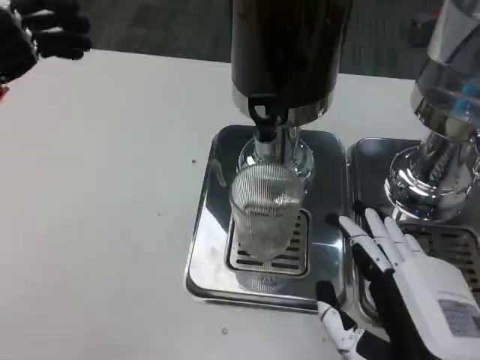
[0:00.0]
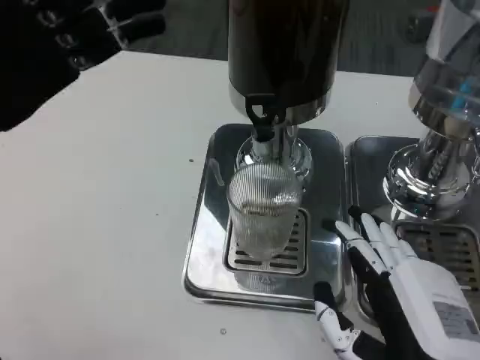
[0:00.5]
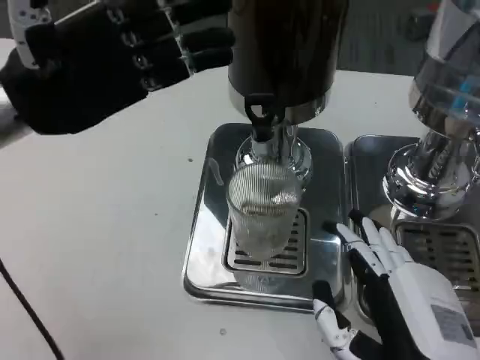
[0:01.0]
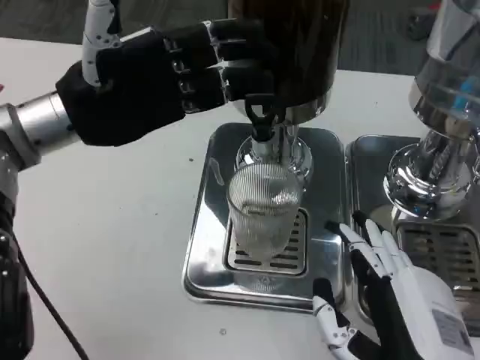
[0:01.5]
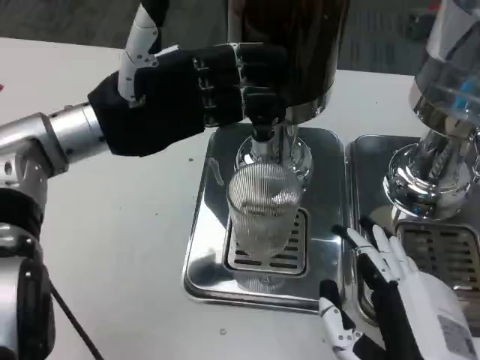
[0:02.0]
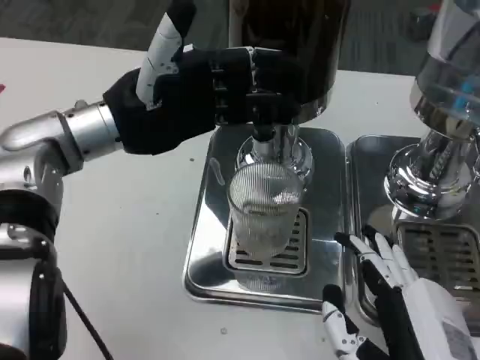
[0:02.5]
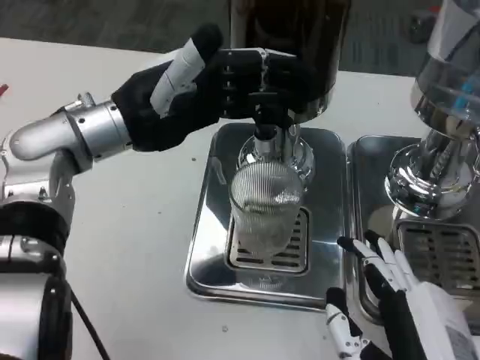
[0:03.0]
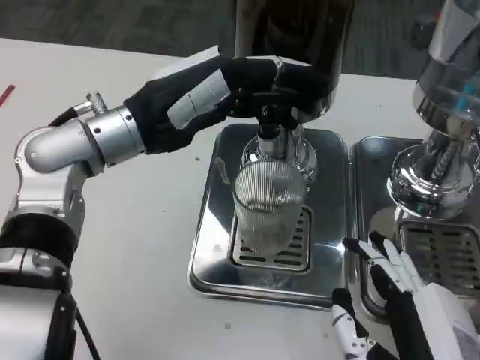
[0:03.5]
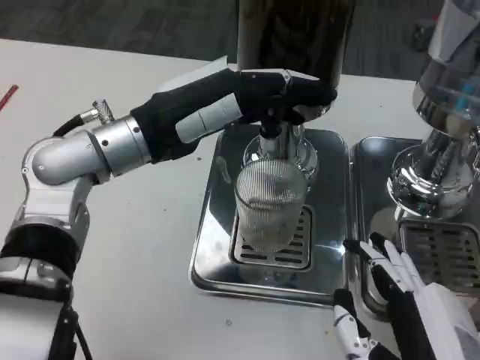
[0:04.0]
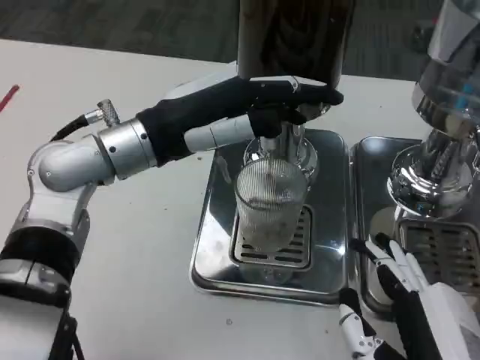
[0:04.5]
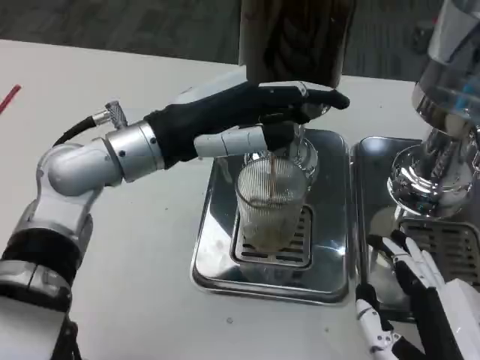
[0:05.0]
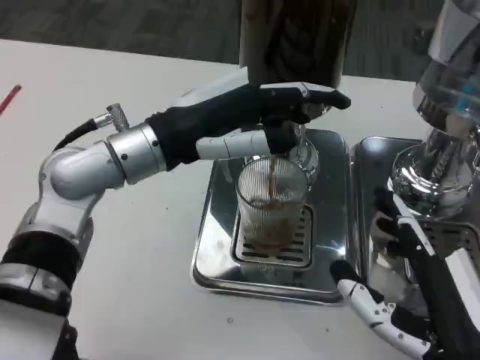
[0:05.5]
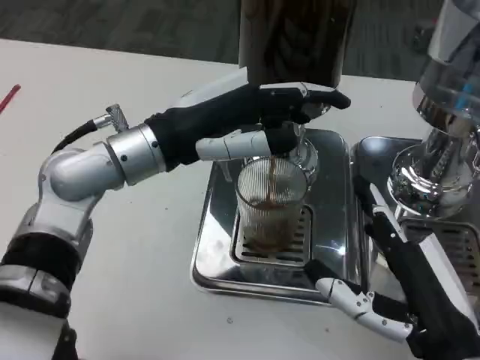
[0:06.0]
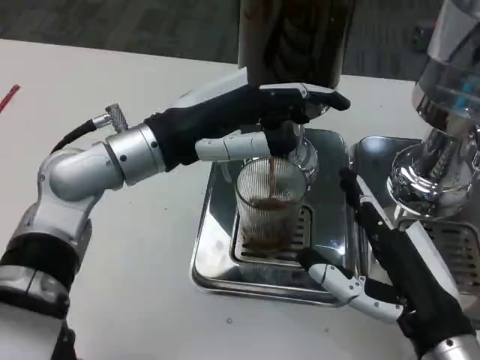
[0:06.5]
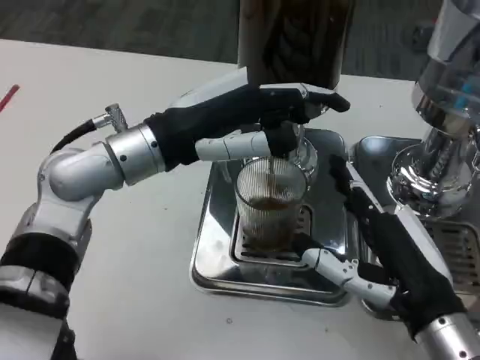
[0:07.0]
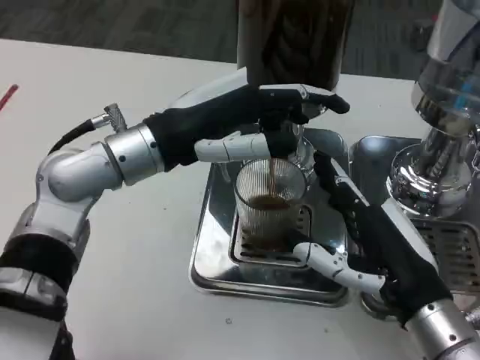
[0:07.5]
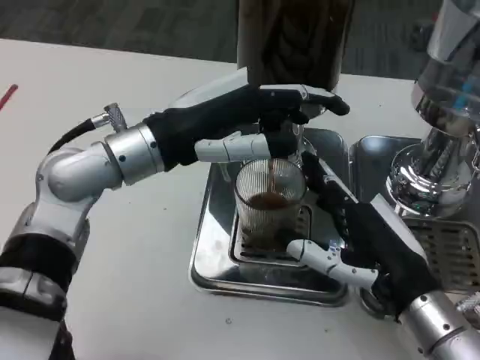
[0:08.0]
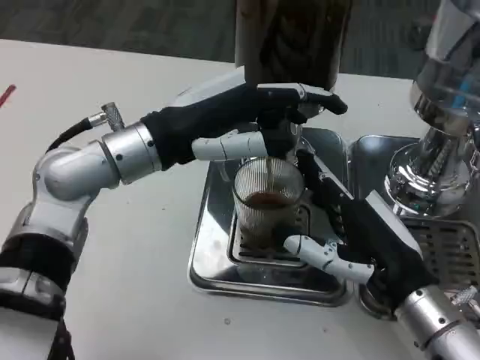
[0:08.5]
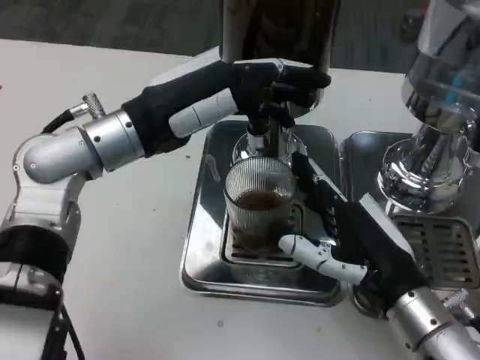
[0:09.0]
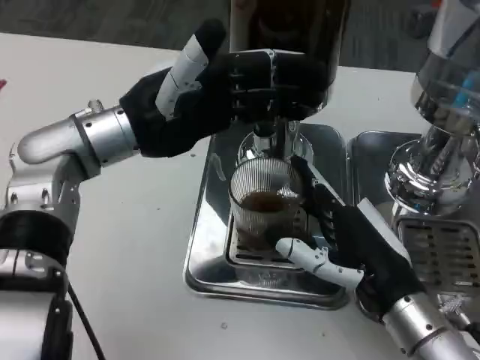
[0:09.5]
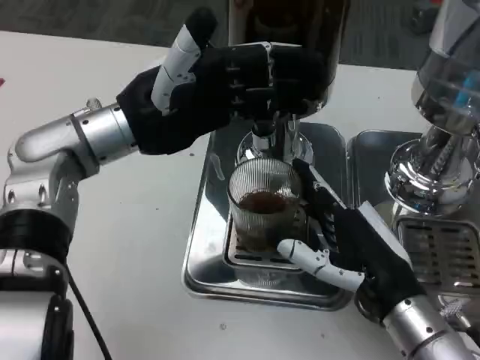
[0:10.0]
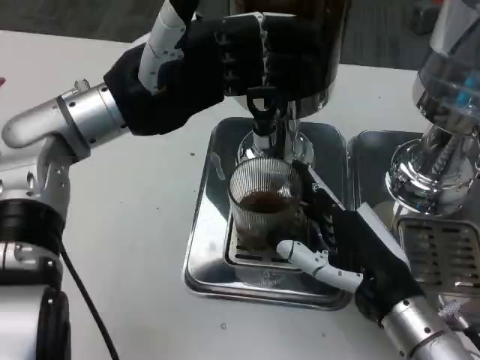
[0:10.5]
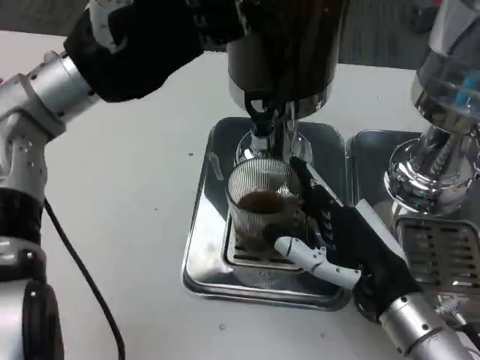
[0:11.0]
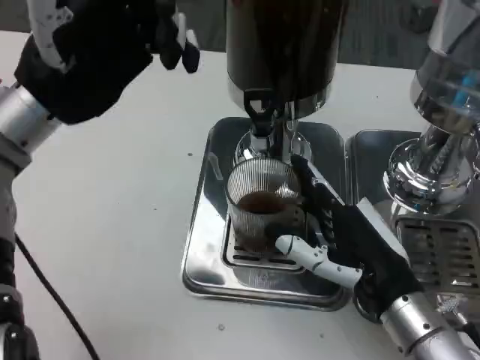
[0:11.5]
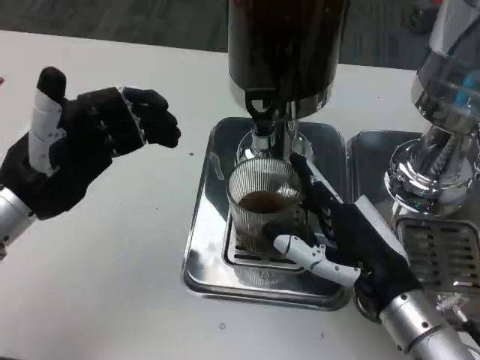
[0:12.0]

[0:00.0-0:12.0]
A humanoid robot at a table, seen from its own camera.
Task of the whole recording: Grasp the cup under the faucet to collect the drink, then remove the cup.
0:00.0 to 0:02.0: The left hand moves forward and to the right, some 15 cm.
0:04.0 to 0:06.0: The right hand heads forward, covering about 5 cm.
0:06.0 to 0:08.0: The right hand goes about 5 cm forward.
0:10.0 to 0:12.0: The left hand travels to the left, backward and downward by approximately 15 cm.

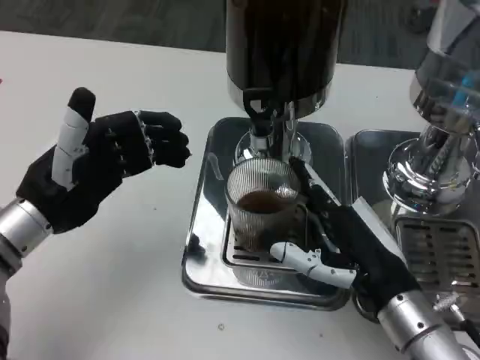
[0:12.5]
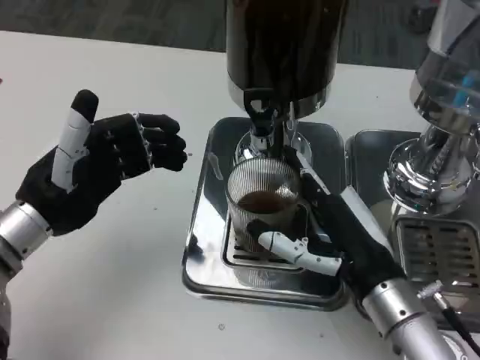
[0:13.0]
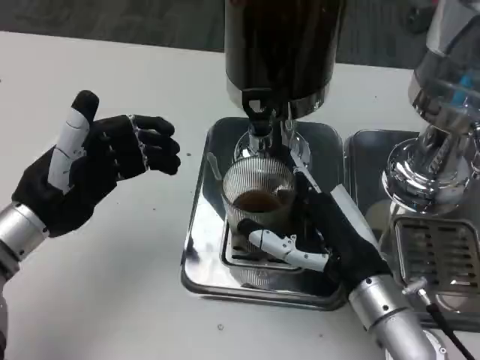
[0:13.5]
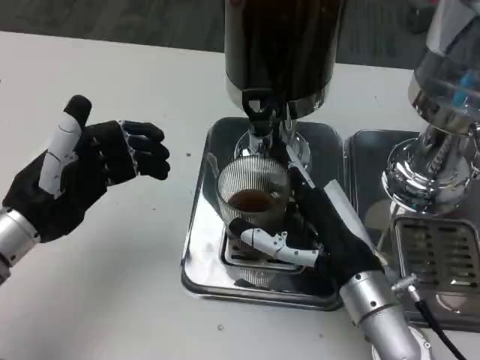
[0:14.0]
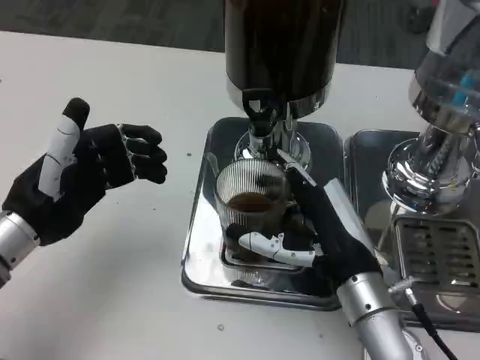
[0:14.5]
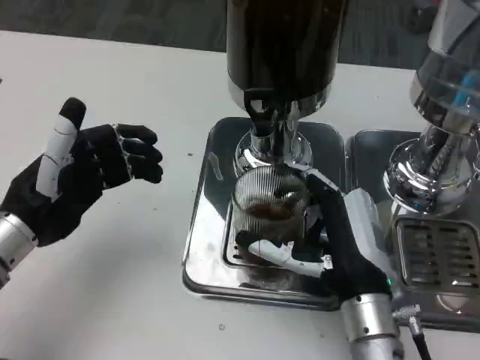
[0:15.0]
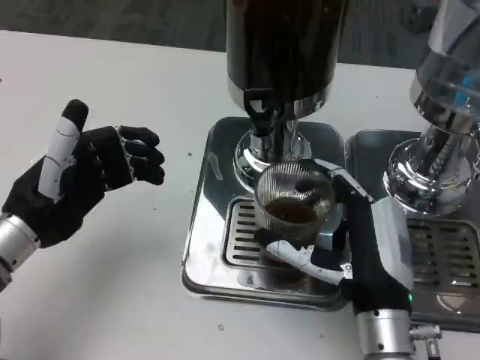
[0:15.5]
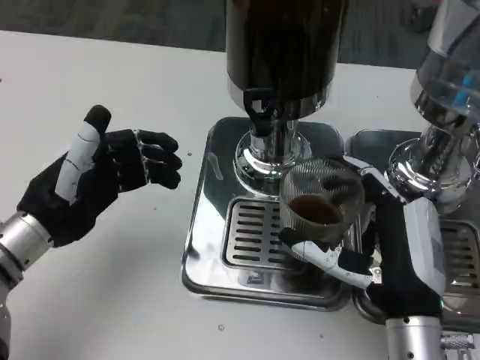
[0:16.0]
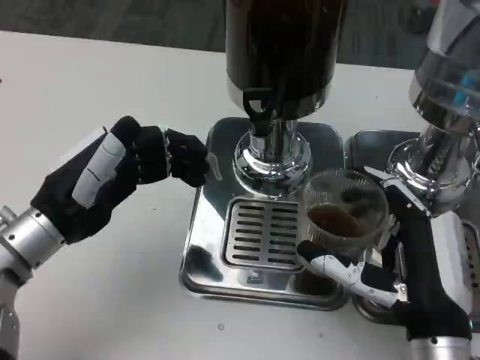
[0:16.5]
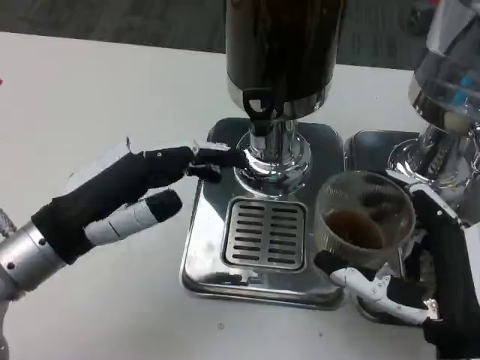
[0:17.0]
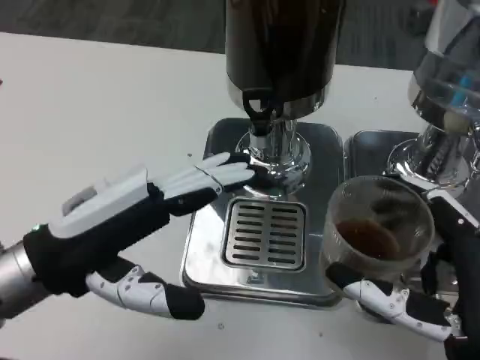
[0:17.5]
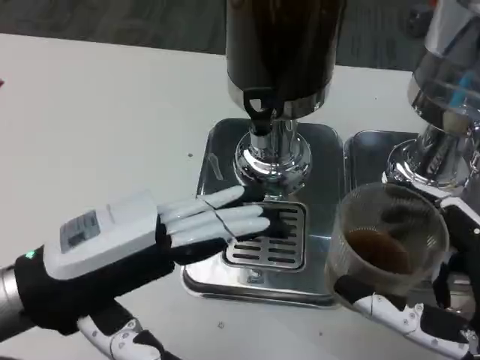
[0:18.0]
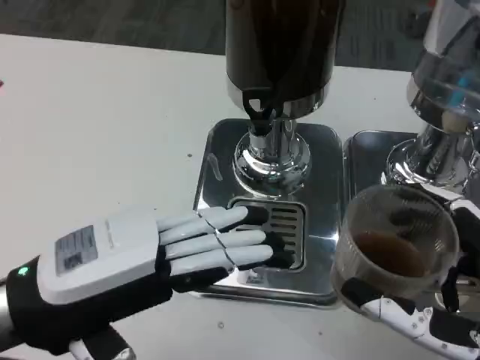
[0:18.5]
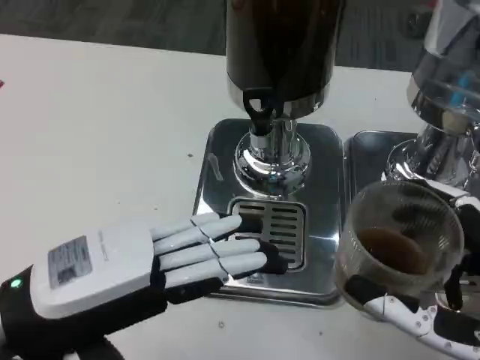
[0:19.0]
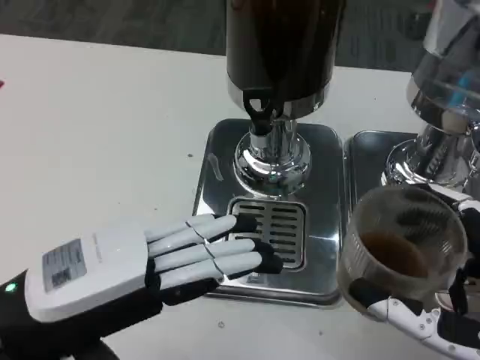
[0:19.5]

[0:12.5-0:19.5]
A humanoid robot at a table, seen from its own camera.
Task of the whole recording: Grasp the cup under the faucet to collect the drink, then remove the cup.
0:12.5 to 0:14.5: The right hand moves approximately 5 cm.
0:16.0 to 0:17.5: The left hand moves backward and upward, some 10 cm, while the right hand goes some 5 cm backward.

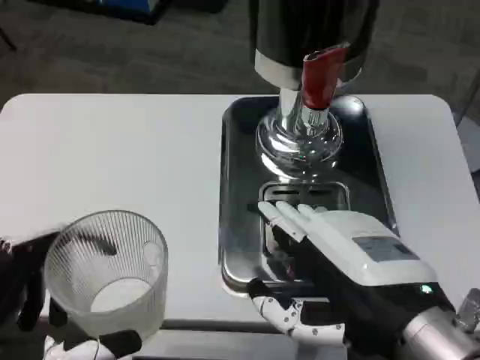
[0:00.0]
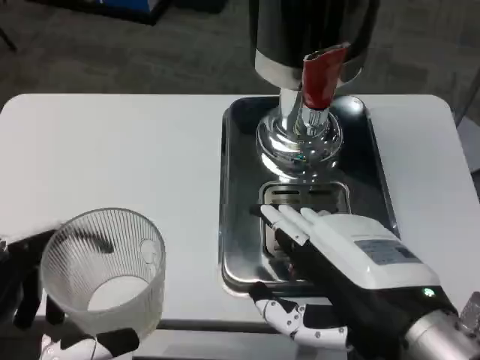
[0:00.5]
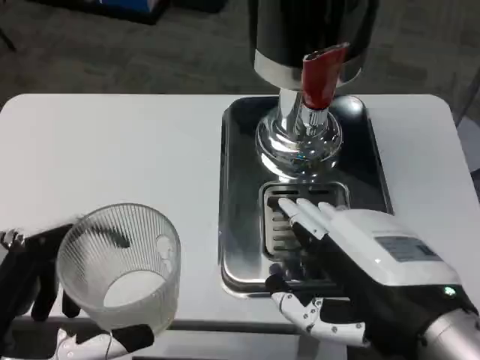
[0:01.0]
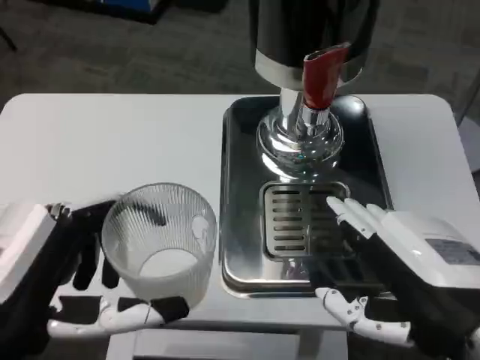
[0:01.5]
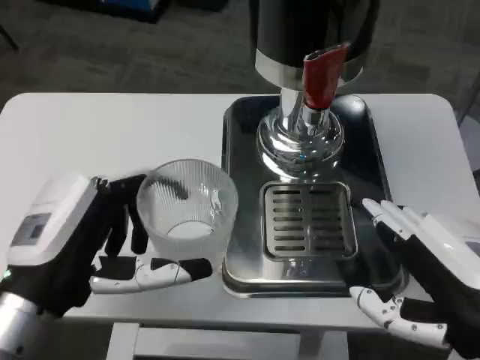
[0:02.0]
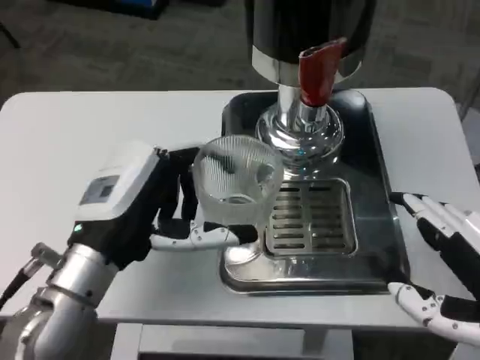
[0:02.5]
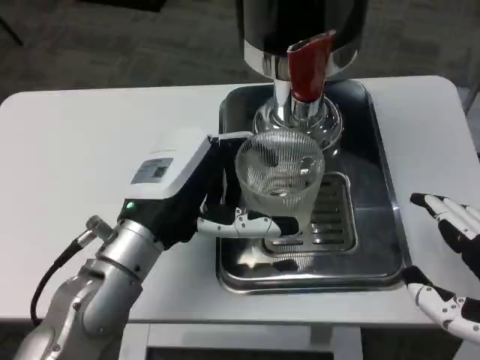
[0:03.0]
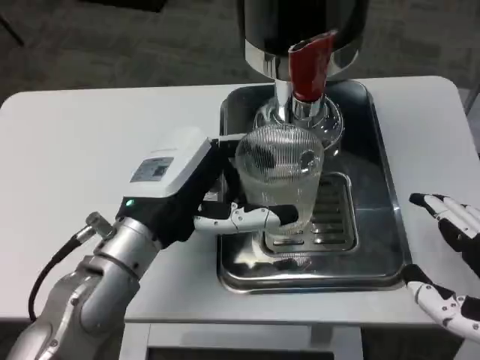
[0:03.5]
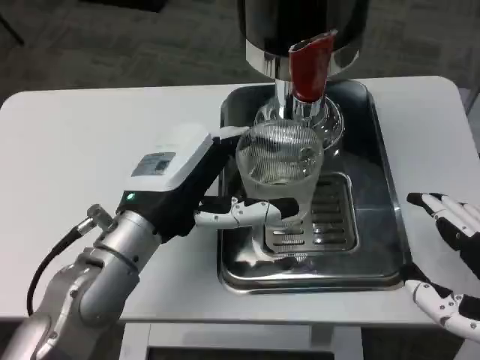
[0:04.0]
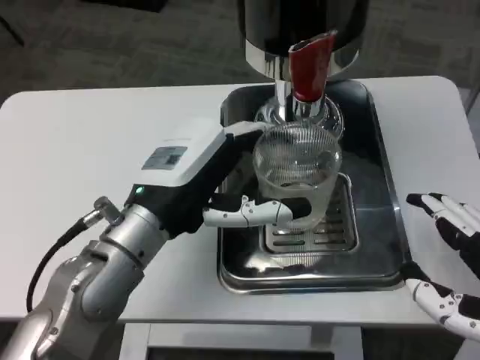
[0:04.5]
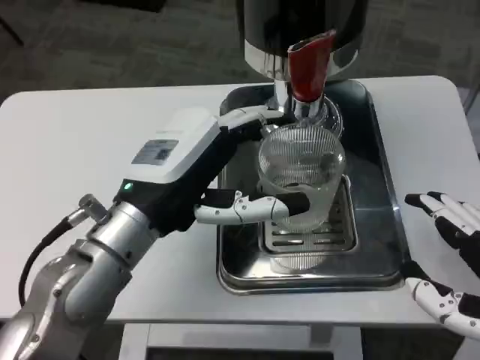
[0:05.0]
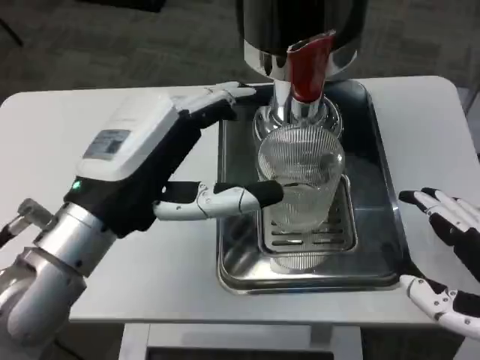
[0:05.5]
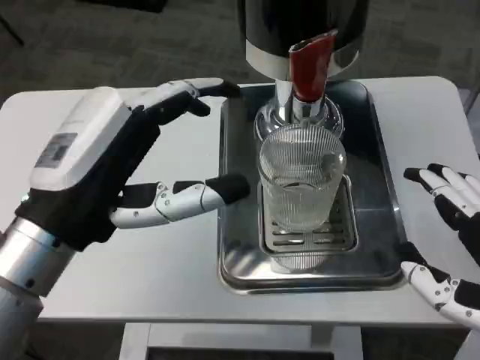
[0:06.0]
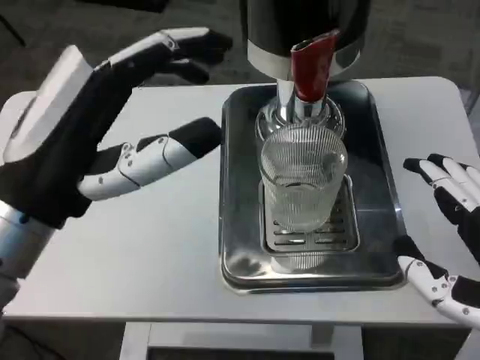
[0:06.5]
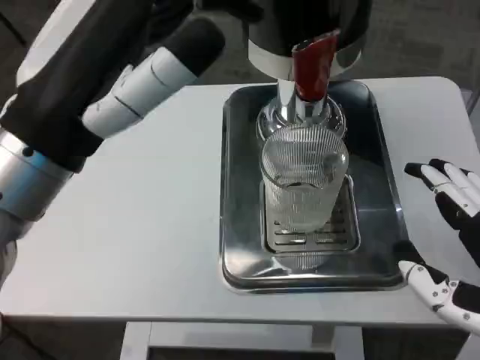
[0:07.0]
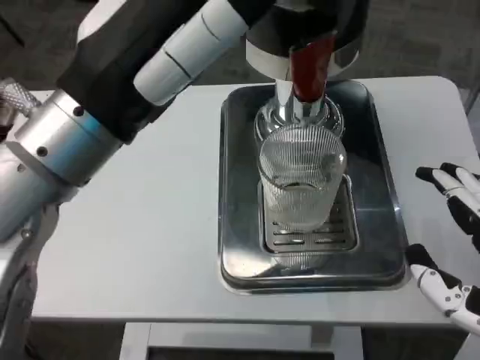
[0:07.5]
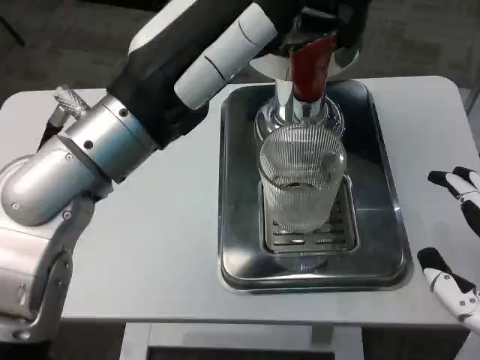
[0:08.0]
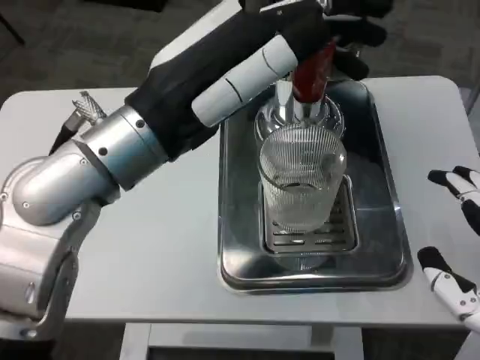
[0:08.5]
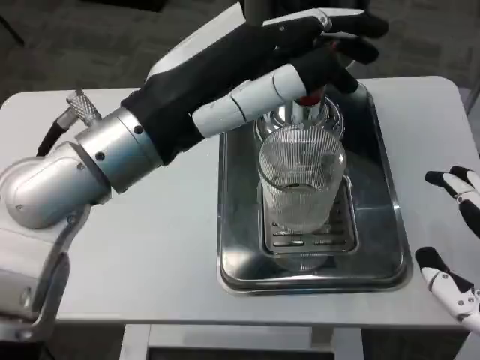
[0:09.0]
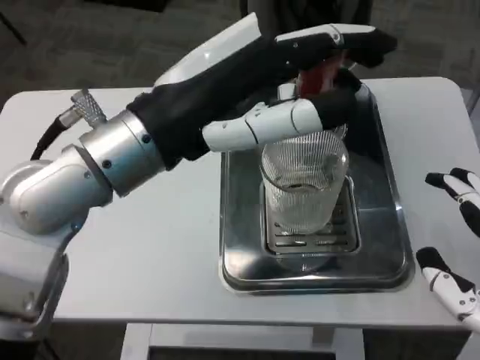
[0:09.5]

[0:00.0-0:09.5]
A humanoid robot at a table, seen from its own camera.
Task of the whole recording: Grasp the cup under the faucet to collect the drink, then remove the cup.
0:00.0 to 0:02.0: The left hand is displaced forward by some 10 cm; the right hand moves to the right, roughly 5 cm.
0:02.0 to 0:04.0: The left hand heads forward and to the right, covering some 10 cm.
0:04.0 to 0:05.5: The left hand shifts by roughly 5 cm.
0:05.5 to 0:07.5: The left hand moves upward, some 10 cm.
